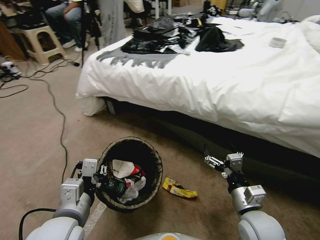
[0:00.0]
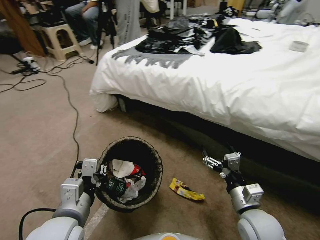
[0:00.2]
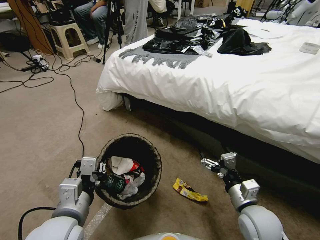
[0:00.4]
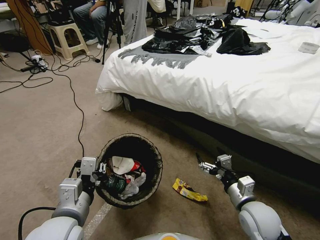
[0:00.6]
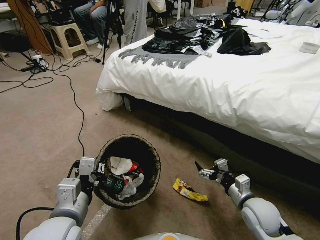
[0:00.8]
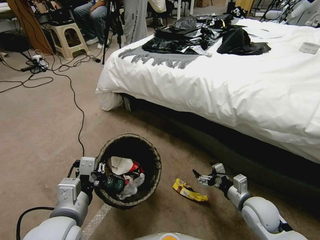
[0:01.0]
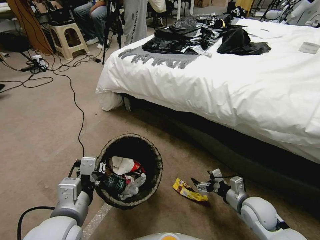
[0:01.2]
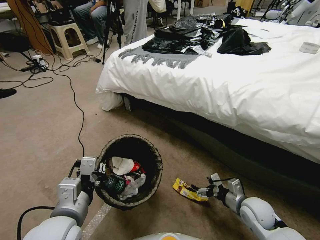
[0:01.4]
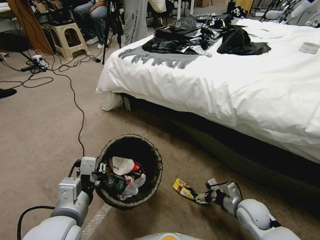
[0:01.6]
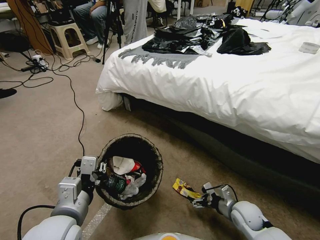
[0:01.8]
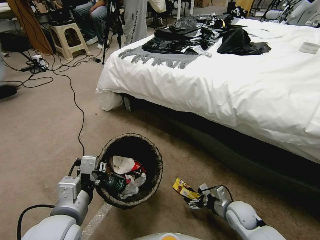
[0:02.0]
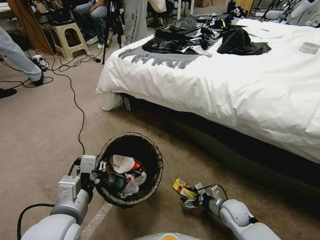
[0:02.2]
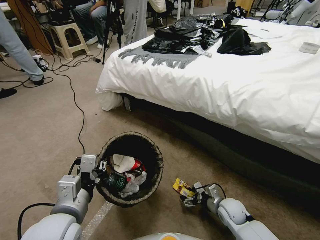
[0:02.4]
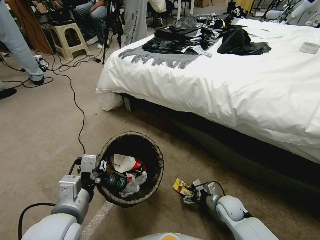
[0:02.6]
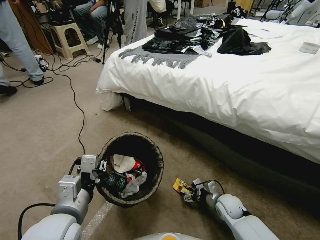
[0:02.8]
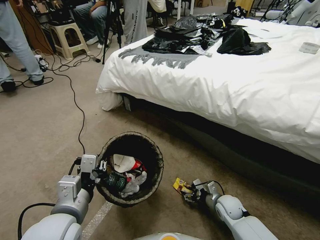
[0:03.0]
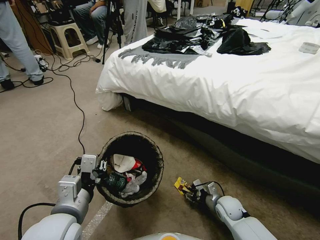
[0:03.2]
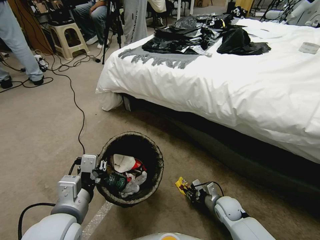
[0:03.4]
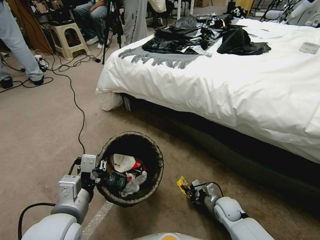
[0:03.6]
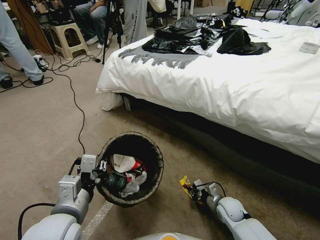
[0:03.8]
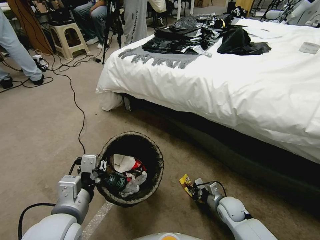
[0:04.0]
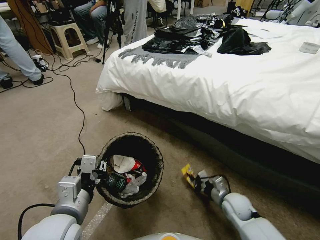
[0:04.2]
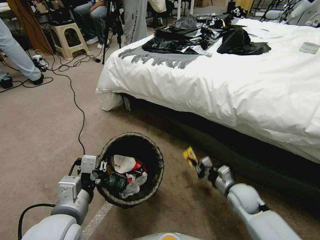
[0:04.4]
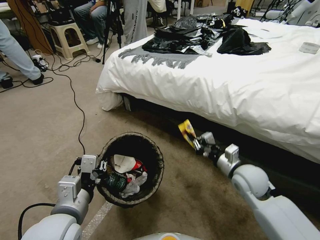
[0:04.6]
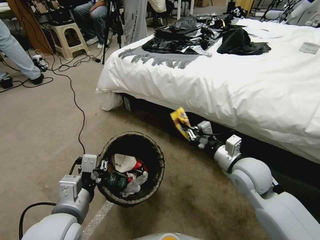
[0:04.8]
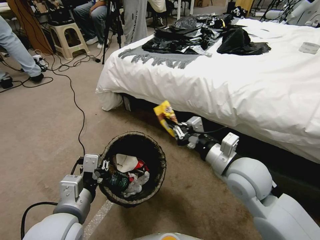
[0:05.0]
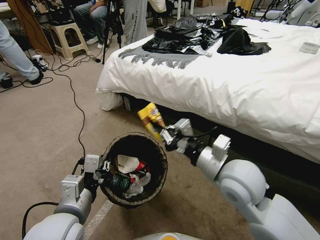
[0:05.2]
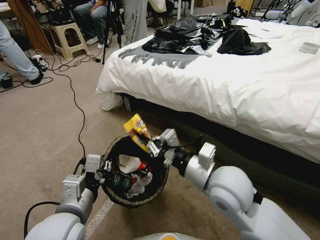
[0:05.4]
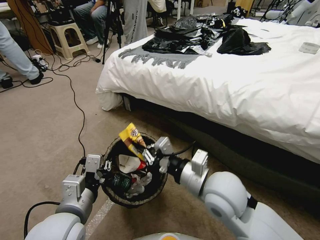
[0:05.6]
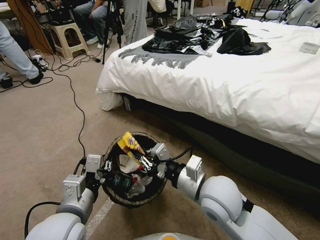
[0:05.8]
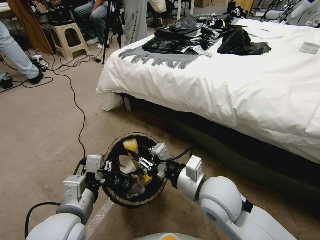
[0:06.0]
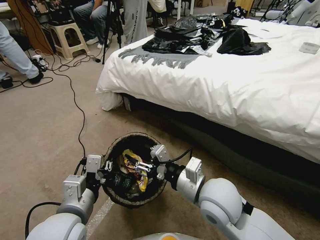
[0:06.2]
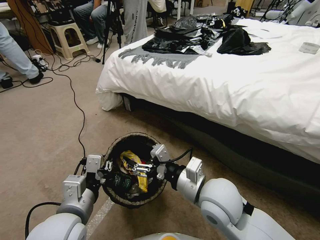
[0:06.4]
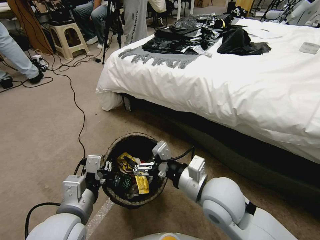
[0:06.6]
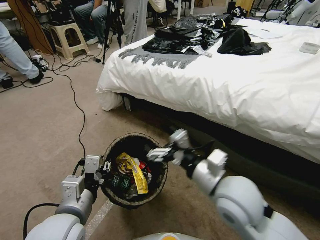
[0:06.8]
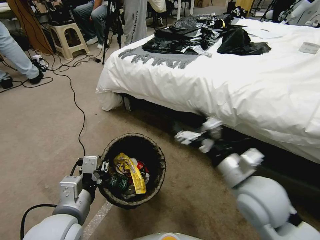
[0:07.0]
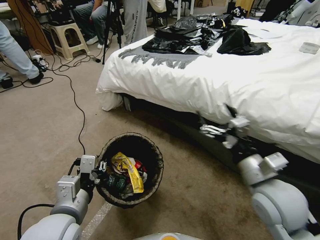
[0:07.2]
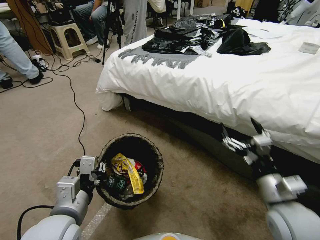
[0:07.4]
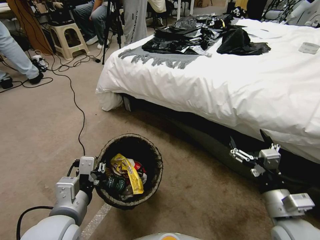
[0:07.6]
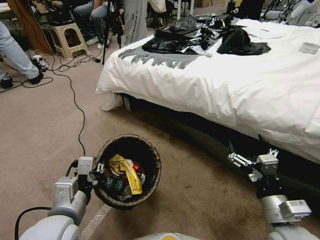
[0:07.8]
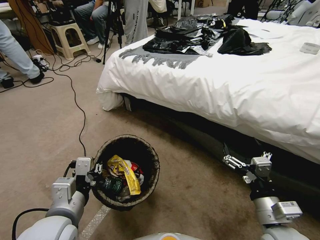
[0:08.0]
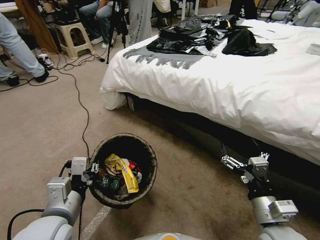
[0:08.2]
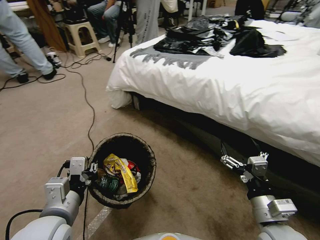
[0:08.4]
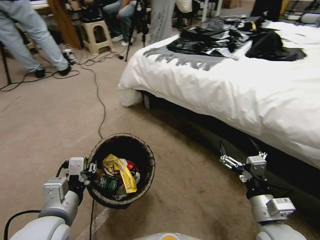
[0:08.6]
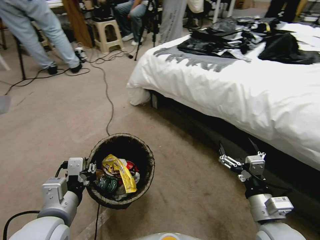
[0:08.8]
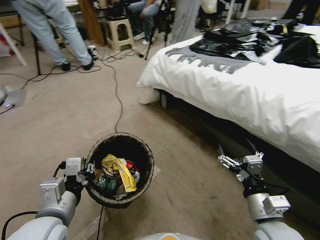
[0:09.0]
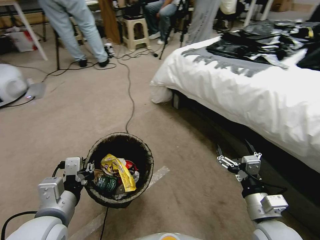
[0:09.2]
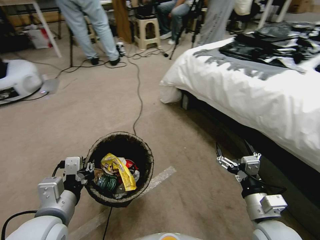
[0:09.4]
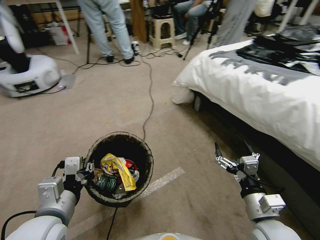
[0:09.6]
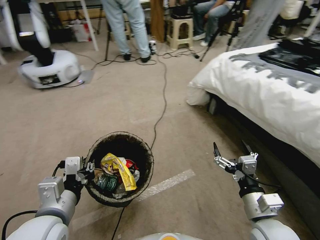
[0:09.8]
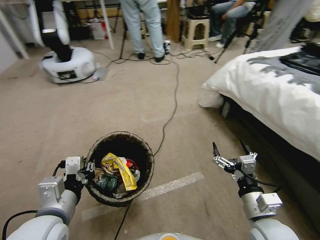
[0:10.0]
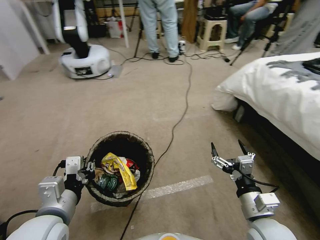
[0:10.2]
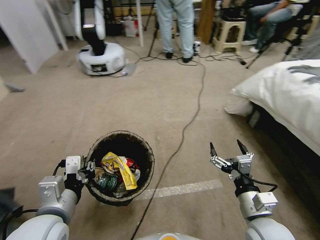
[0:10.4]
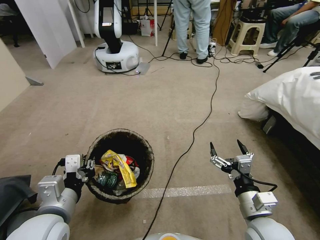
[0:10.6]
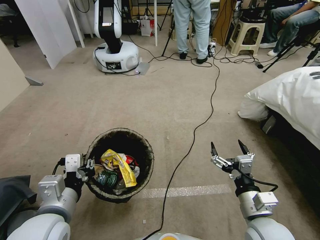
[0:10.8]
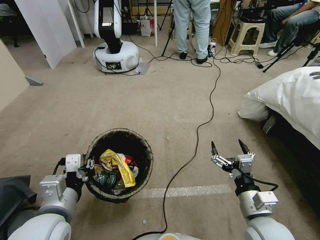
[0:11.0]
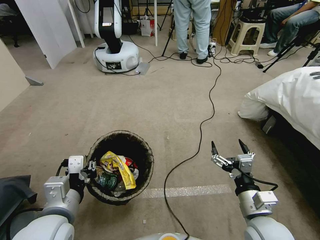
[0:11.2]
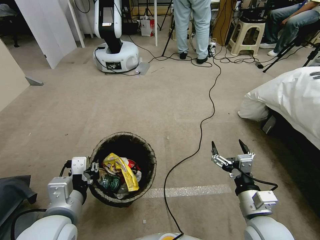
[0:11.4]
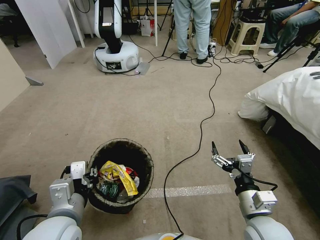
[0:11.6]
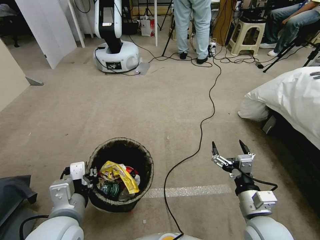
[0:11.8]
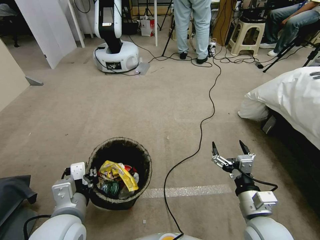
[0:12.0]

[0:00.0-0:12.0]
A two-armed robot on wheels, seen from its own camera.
Task of the whole recording: Pick up the trash bin, then pick up the garbage from the floor and place it into the trash bin.
0:00.0 to 0:01.6: The right gripper travels downward, forward and to the right by roughly 15 cm.
0:01.6 to 0:03.0: The right gripper is displaced downward by roughly 5 cm.
0:03.0 to 0:04.4: The right gripper moves upward, some 10 cm, and closes its fingers.
0:04.4 to 0:06.0: The right gripper heads upward and to the left, covering about 25 cm.
0:06.0 to 0:07.6: The right gripper travels to the right and backward by some 20 cm, and opens.

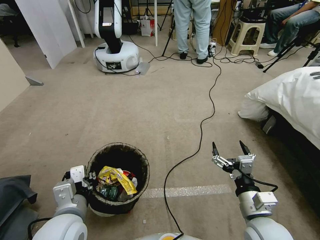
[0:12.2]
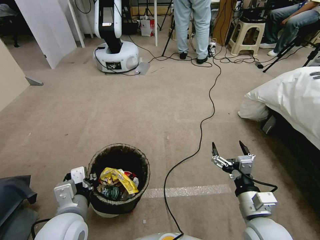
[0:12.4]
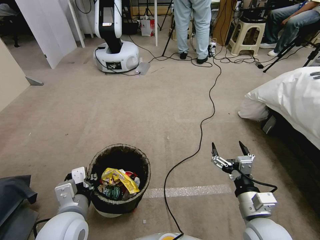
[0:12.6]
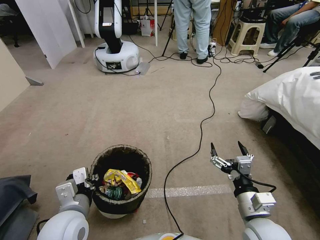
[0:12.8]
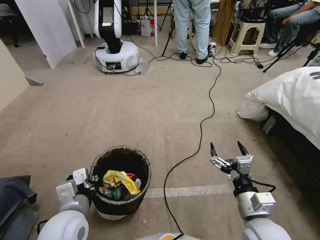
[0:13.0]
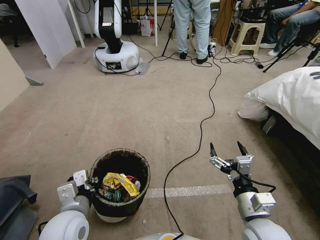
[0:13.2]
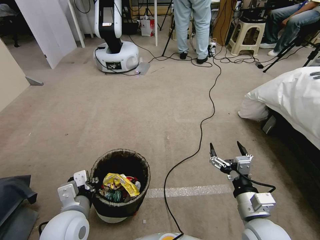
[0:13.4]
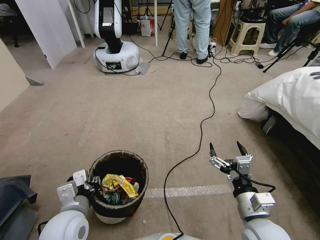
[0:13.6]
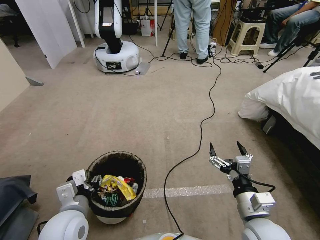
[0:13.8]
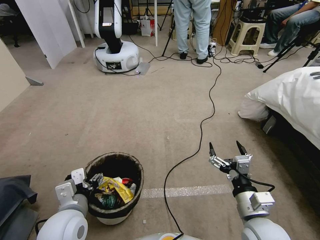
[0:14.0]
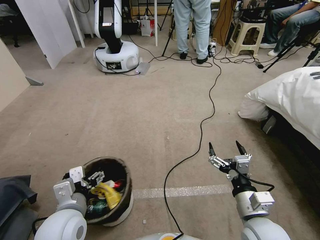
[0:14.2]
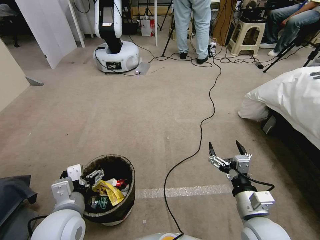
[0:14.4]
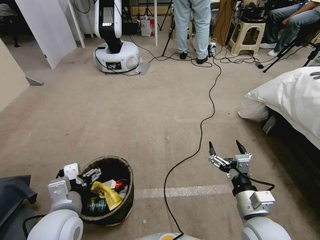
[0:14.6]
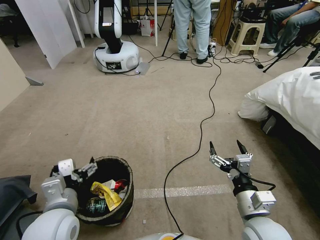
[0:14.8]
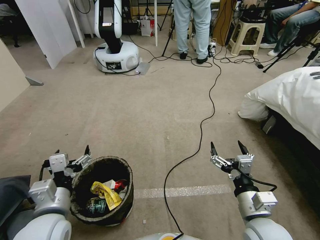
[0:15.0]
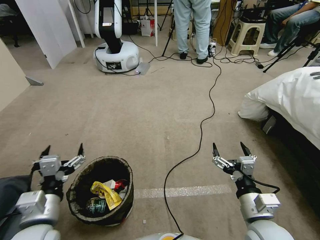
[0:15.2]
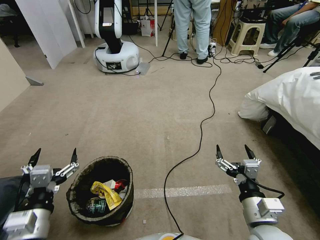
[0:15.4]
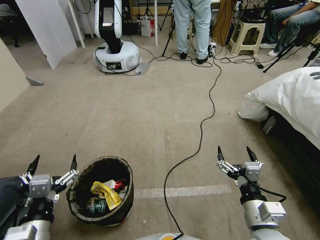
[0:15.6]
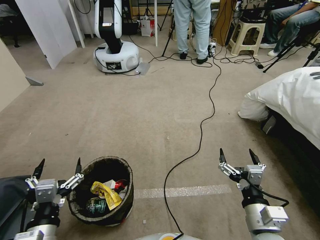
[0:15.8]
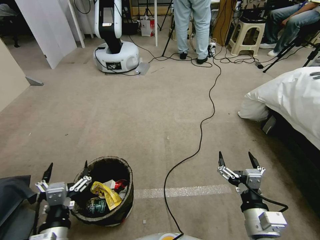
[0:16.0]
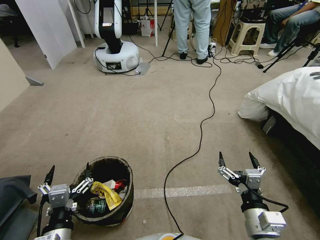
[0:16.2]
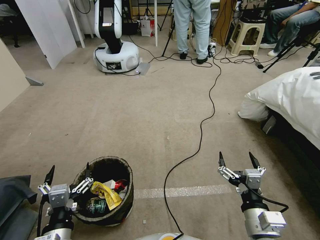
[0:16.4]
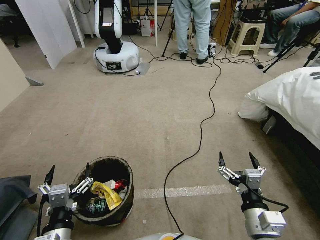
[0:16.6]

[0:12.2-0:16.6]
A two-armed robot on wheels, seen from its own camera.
Task of the whole recording: Pick up the trash bin, then pick up the garbage from the floor and place it into the trash bin.
0:12.2 to 0:13.6: The grippers make only small movements.
0:13.6 to 0:15.2: The left gripper changes place by some 5 cm, and opens its fingers.
0:15.2 to 0:16.6: The left gripper shifts approximately 10 cm backward and downward.
